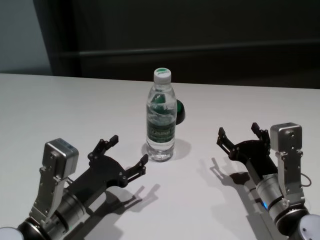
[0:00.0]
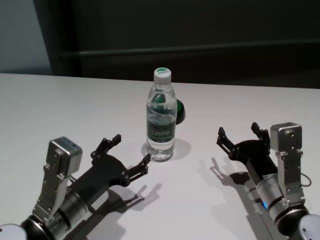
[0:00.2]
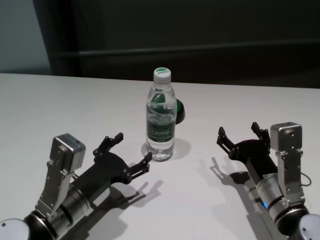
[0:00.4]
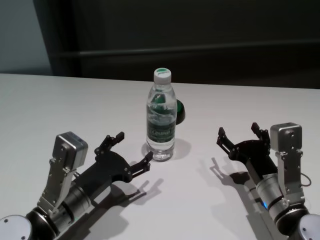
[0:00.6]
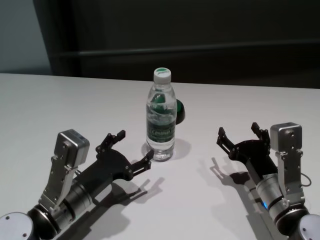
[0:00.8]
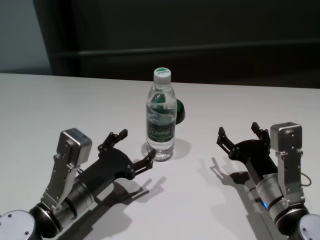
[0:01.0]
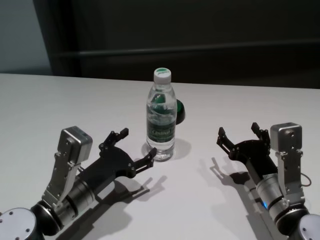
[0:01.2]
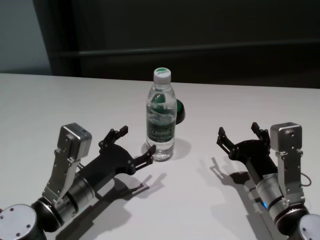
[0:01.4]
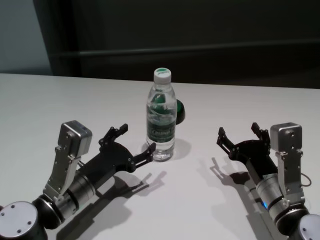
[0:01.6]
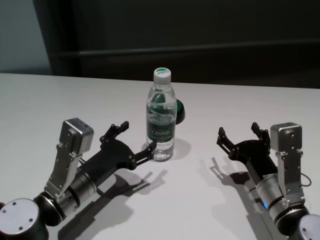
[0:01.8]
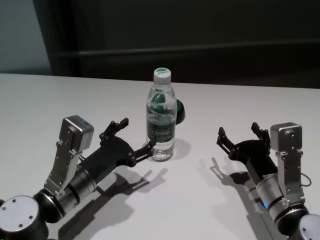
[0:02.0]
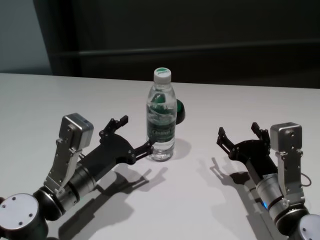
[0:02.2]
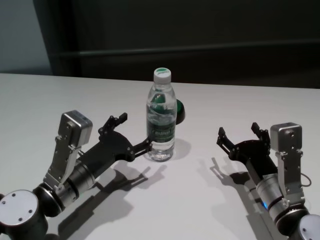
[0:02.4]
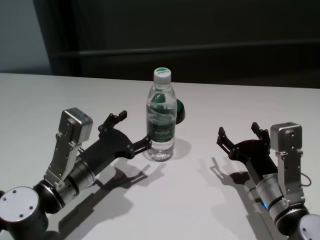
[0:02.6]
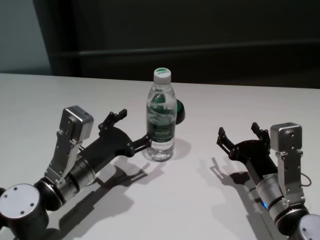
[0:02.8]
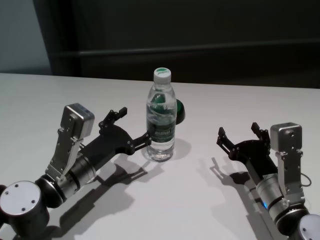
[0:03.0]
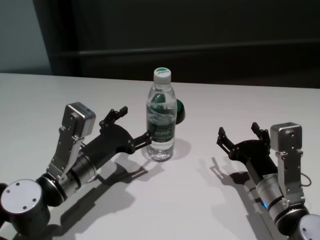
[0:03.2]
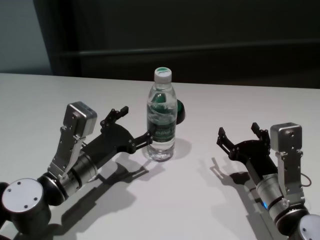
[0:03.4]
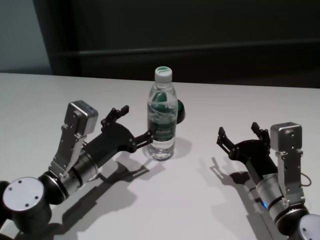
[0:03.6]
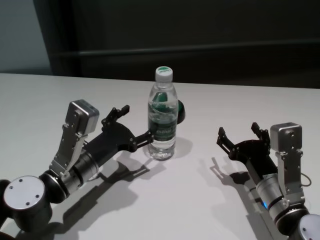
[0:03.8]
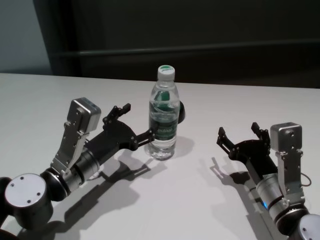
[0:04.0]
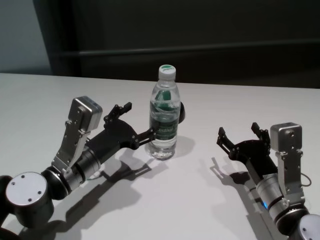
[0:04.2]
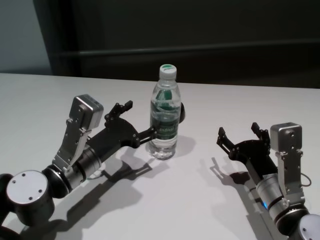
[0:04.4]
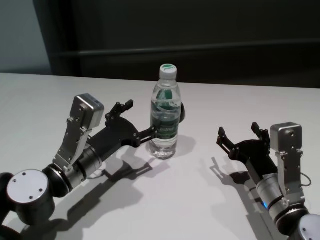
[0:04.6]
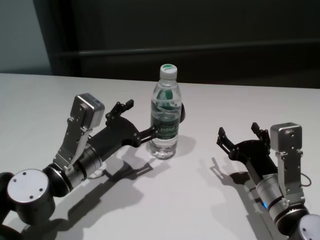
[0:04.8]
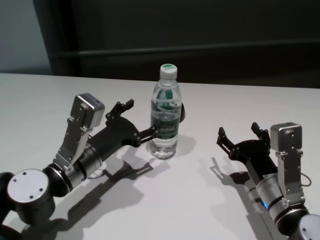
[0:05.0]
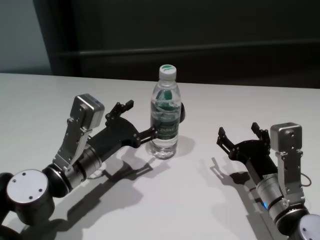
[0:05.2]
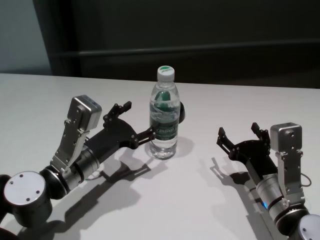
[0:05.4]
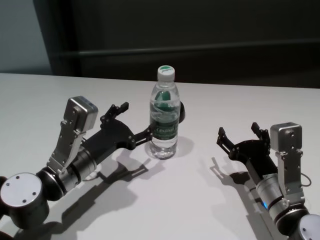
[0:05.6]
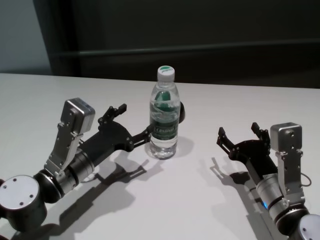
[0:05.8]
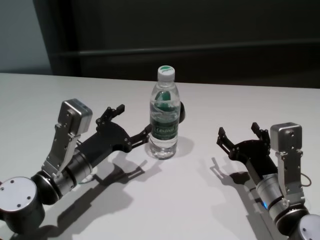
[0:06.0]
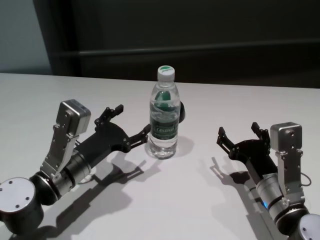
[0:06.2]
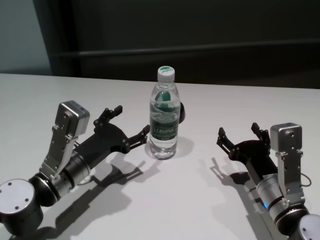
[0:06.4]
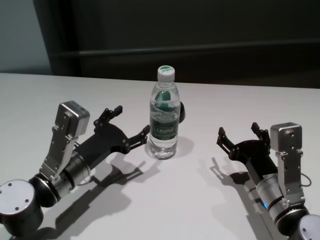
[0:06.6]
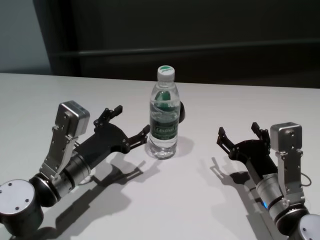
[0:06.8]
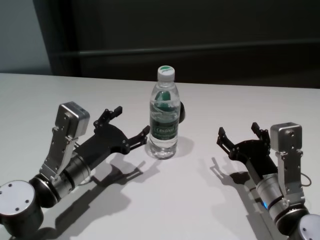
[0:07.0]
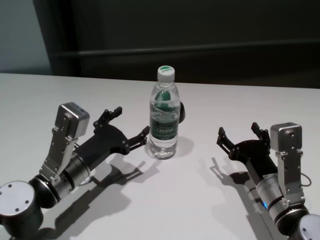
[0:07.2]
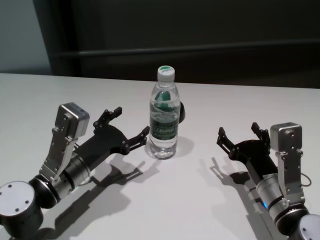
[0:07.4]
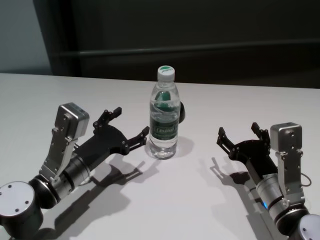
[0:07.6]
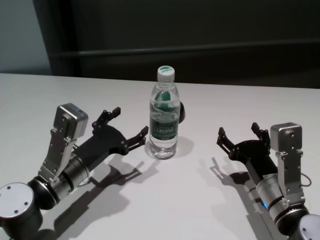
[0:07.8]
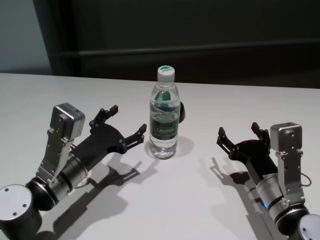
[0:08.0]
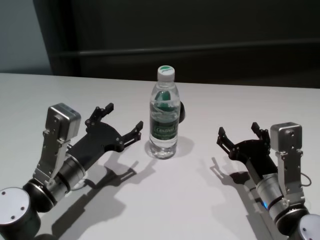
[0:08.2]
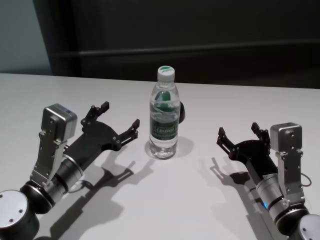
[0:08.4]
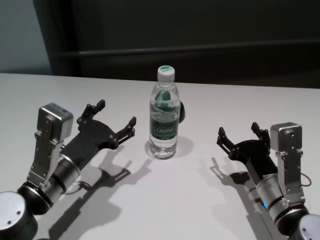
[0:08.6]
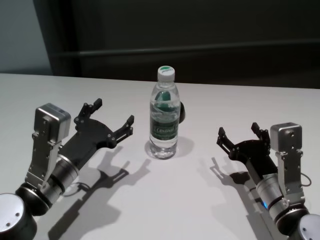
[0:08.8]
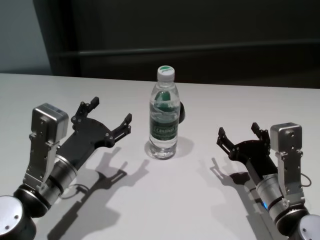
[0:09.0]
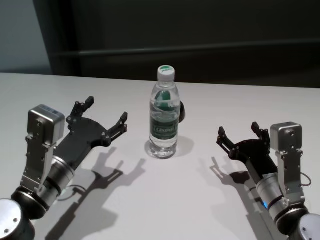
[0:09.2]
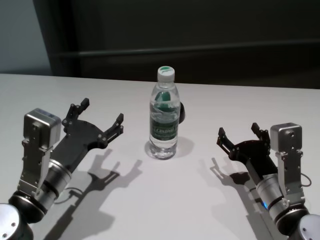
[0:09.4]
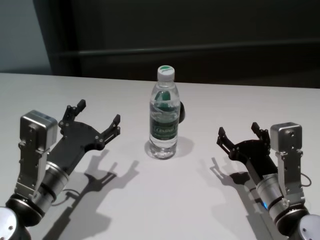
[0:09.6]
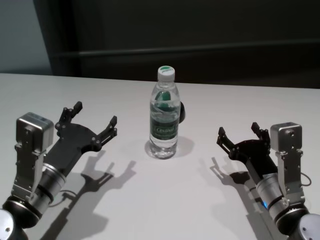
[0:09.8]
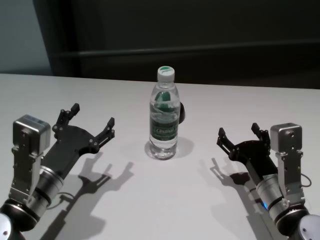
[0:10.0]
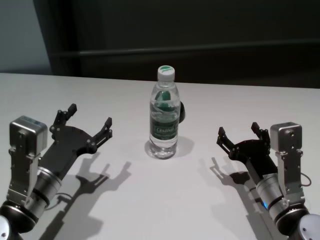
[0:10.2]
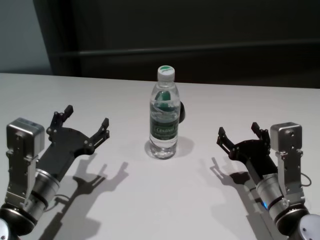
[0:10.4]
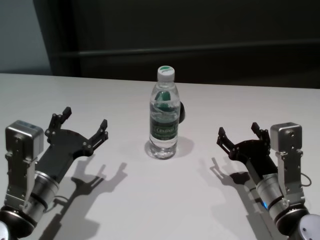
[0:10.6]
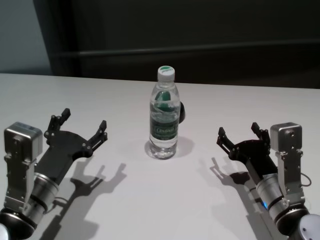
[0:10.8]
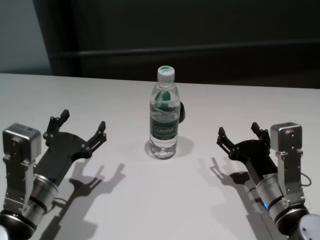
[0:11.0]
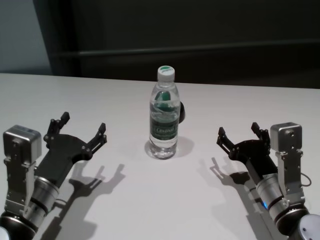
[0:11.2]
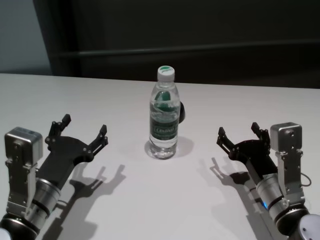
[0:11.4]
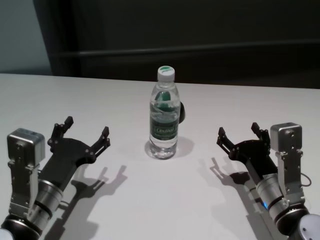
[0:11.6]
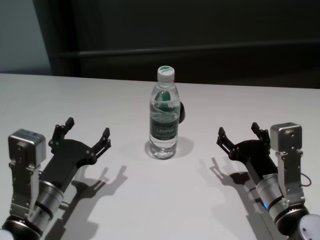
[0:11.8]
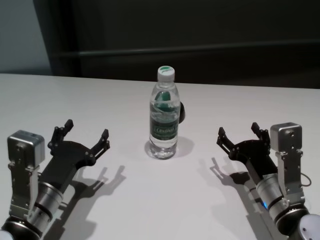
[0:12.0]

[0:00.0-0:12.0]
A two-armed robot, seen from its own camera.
Task of the whole recording: return to a safe position after touching an obstacle with your arm on the white table.
Step, 0:00.0 to 0:07.8: Touch the bottle with left gripper.

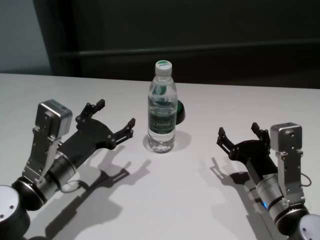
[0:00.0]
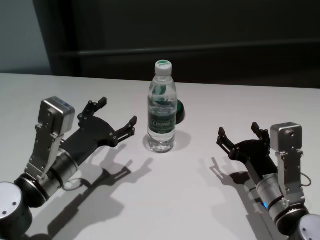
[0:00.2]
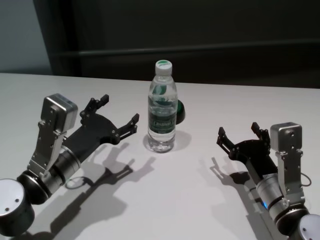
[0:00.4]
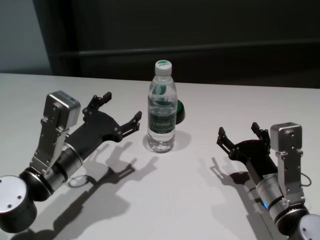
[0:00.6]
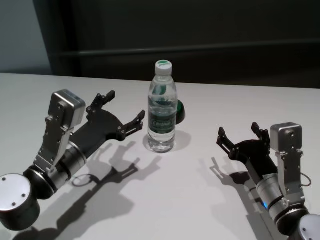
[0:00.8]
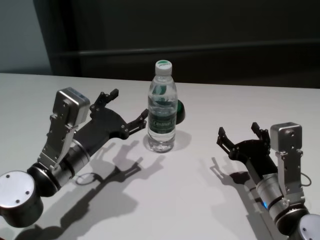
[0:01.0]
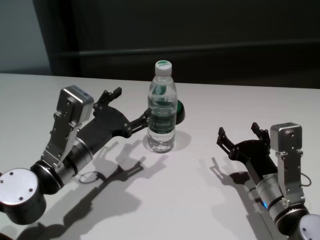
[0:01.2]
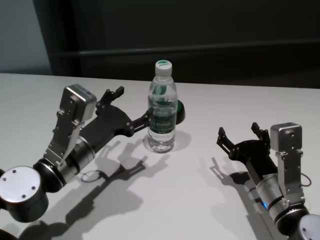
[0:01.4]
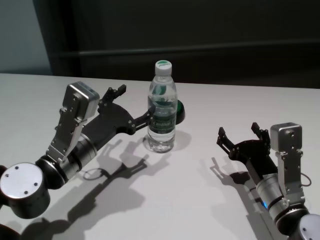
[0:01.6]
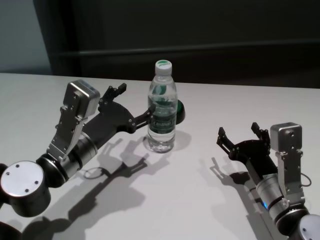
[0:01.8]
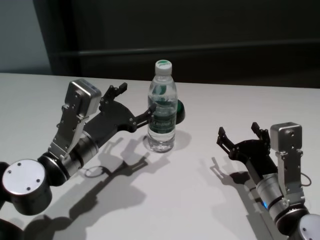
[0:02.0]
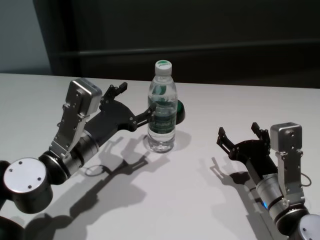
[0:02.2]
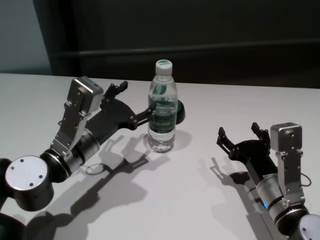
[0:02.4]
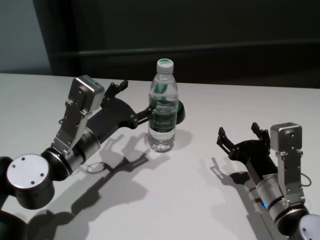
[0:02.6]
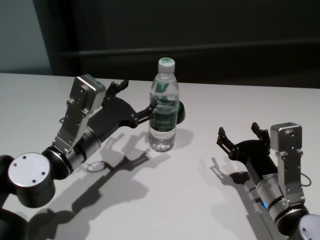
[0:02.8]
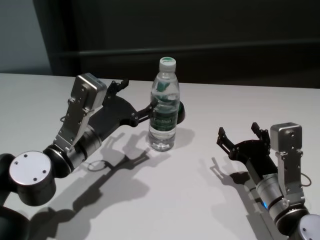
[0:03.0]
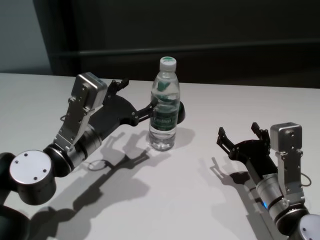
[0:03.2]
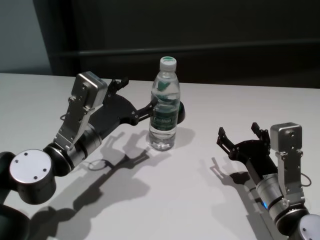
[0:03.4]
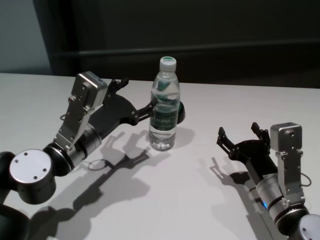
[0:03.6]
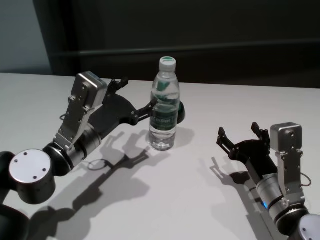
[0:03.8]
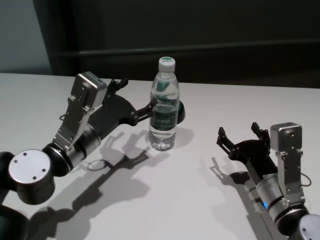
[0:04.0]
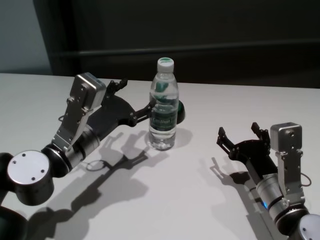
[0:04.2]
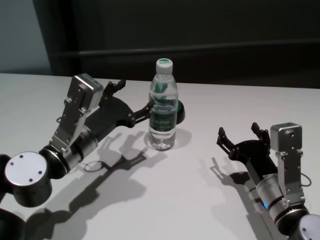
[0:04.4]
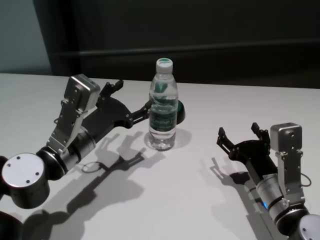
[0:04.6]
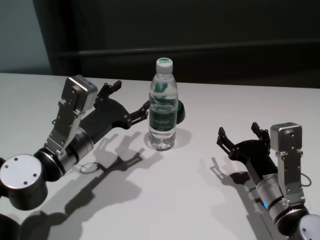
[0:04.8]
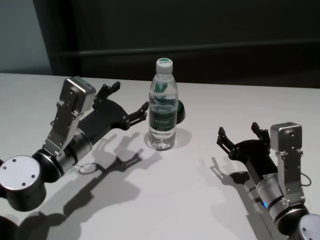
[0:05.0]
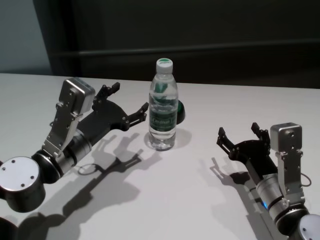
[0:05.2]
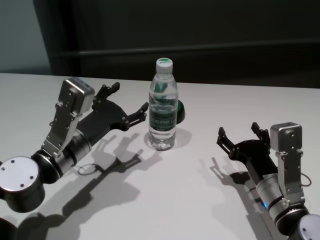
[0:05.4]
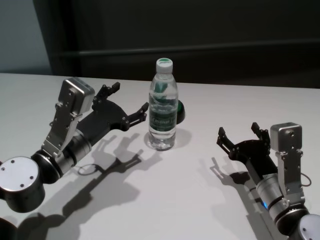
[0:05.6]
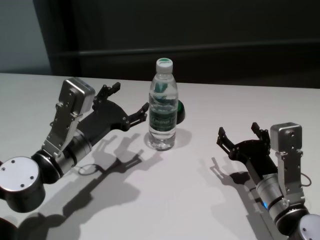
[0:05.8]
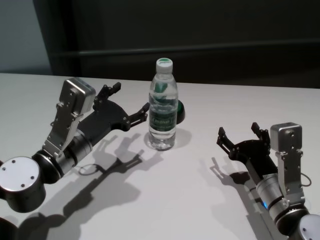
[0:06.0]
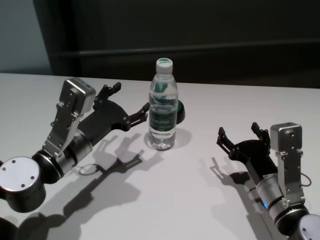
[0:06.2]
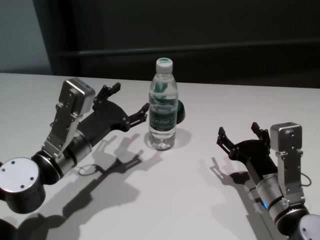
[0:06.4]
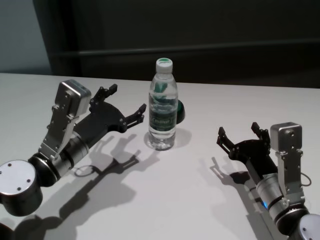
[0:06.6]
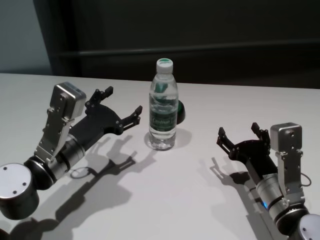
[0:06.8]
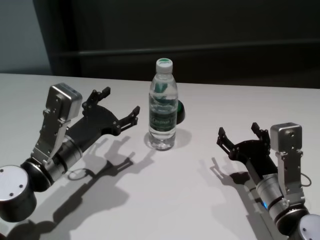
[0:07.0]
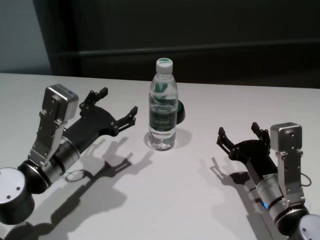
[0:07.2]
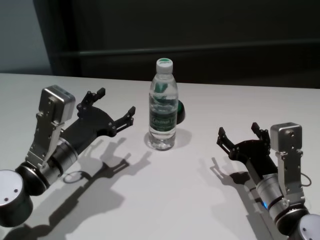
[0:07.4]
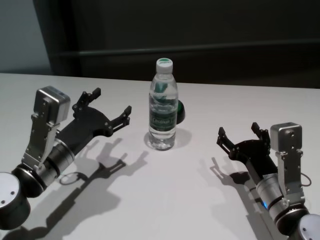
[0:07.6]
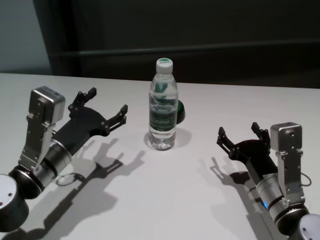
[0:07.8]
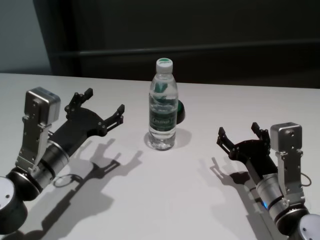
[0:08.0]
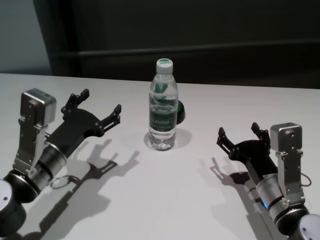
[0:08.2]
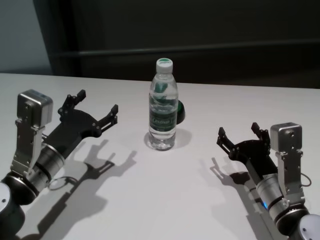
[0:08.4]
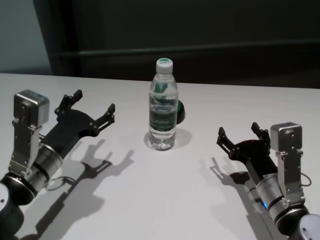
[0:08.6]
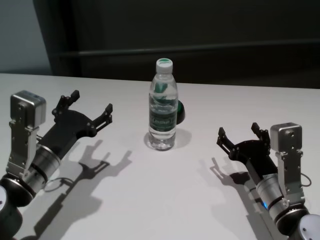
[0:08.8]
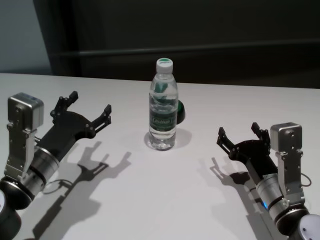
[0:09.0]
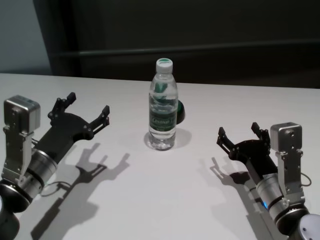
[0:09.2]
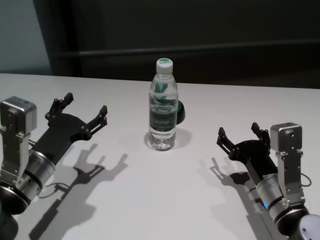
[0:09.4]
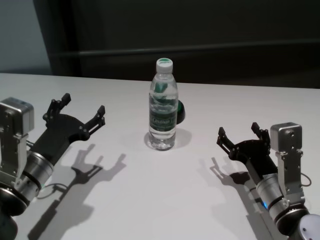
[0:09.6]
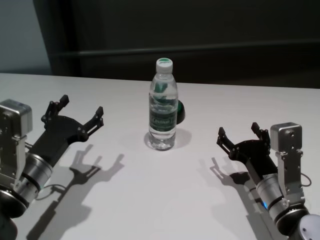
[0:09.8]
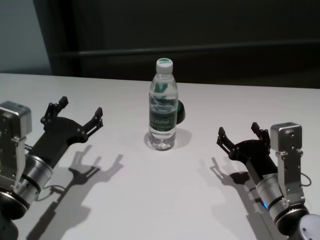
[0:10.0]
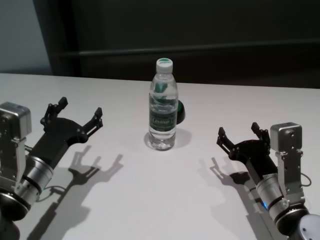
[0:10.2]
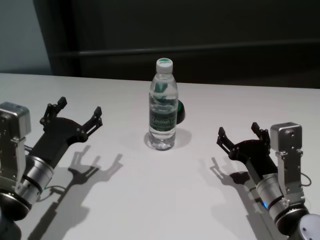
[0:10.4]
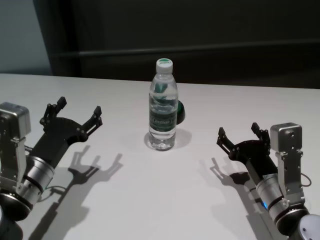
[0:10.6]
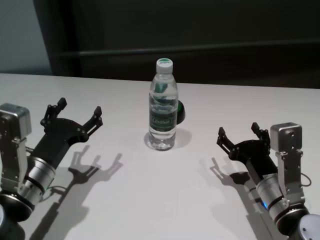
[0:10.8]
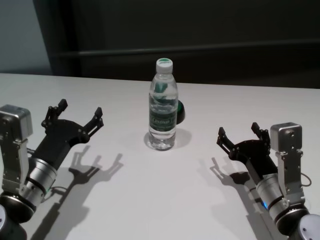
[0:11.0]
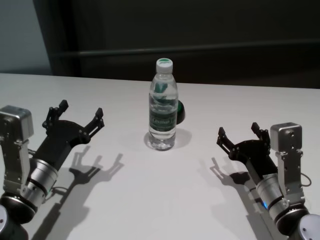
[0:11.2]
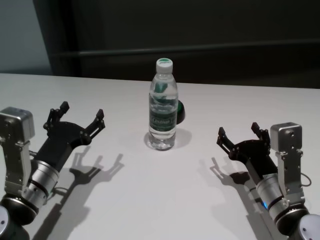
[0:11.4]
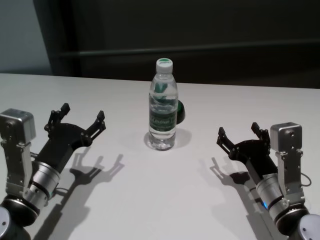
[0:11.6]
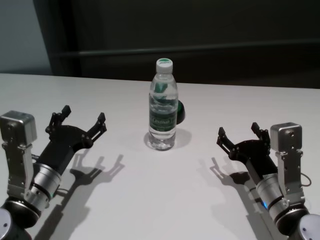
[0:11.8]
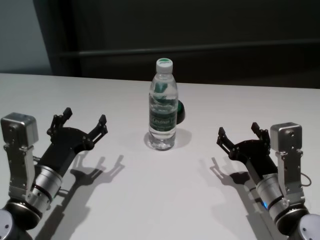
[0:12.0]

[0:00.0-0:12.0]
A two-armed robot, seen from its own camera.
Task of the whole recording: return to a safe position after touching an obstacle with your arm on the white table.
Step, 0:00.0 to 0:05.2: Touch the bottle with left gripper.
